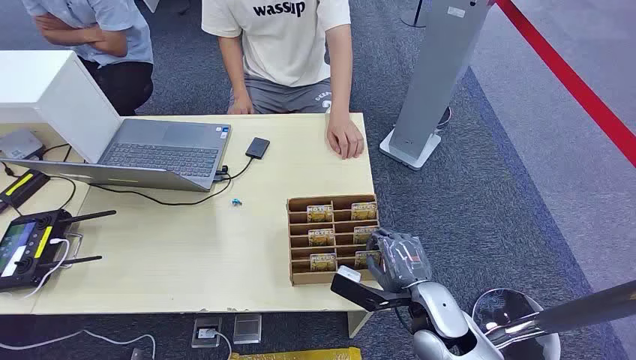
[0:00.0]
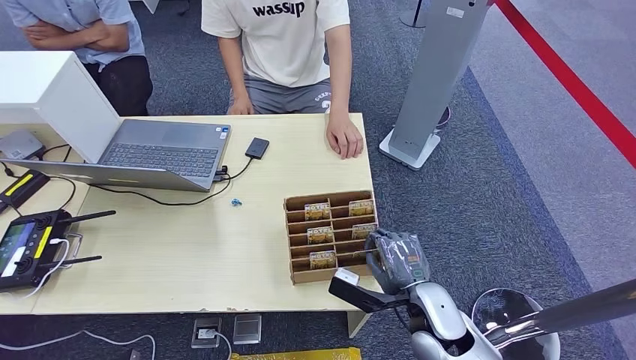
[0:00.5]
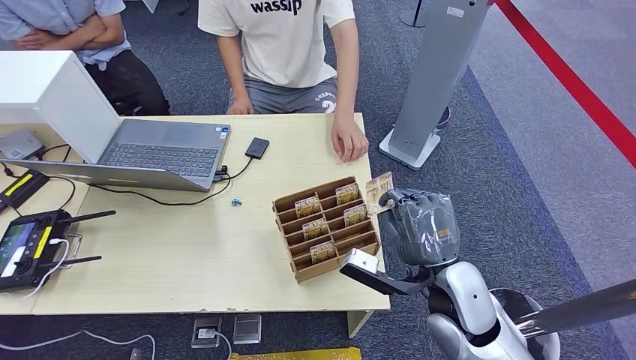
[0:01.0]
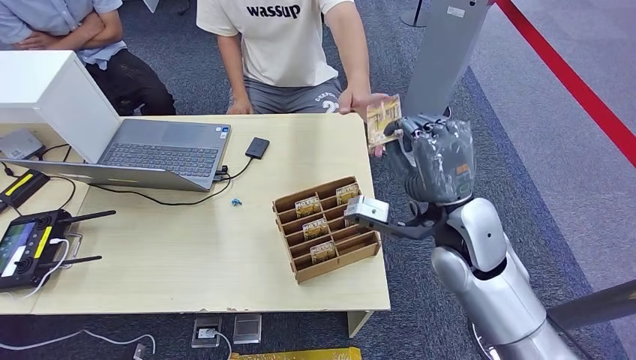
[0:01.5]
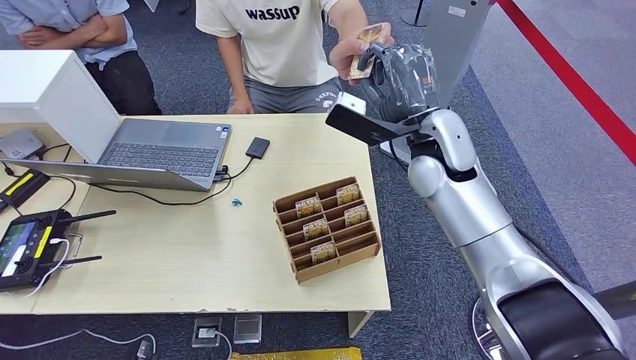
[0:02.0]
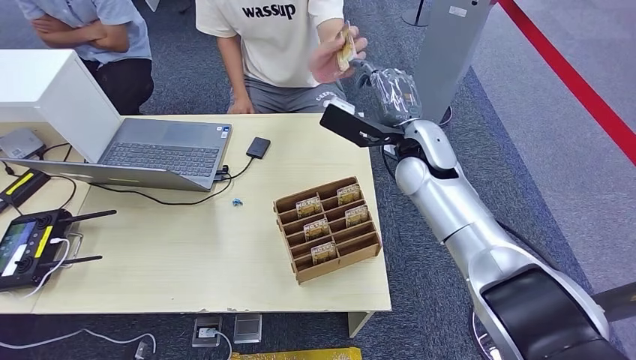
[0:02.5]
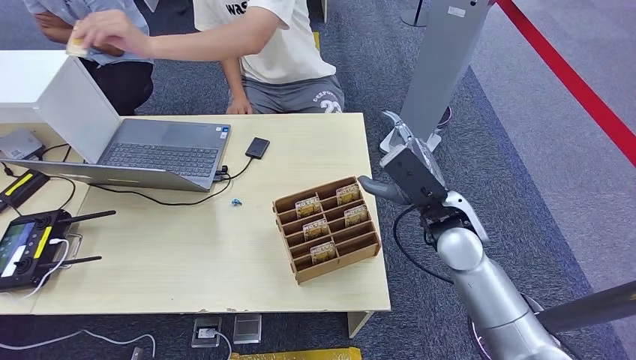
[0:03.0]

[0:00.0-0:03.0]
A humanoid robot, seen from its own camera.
Step, 0:00.0 to 0:01.0: Pick up the key card from the card box.
Step, 0:01.5 to 0:03.0: Hand the key card to the target.
0:01.5 to 0:03.0: The right hand reaches approximately 15 cm forward, then returns.
